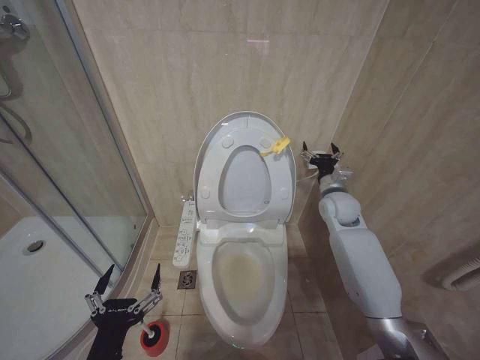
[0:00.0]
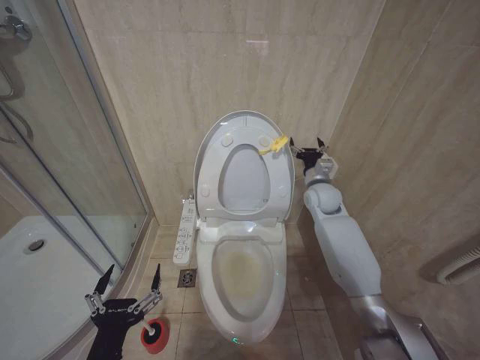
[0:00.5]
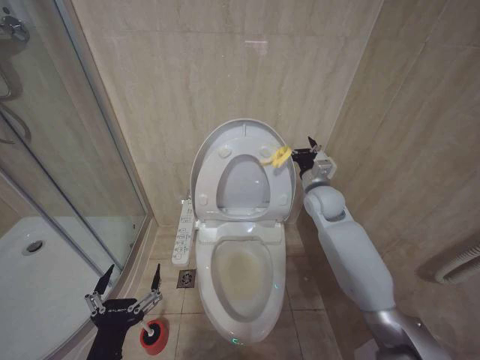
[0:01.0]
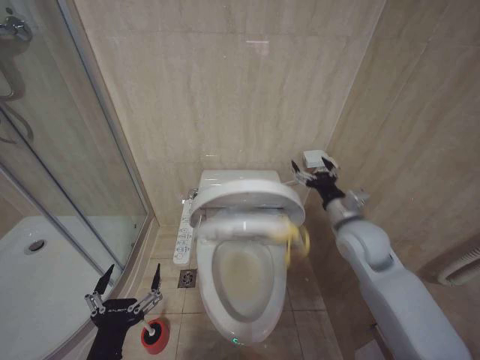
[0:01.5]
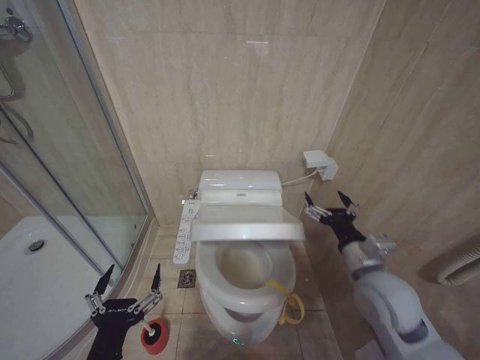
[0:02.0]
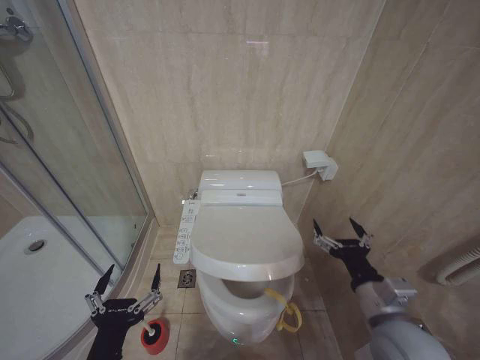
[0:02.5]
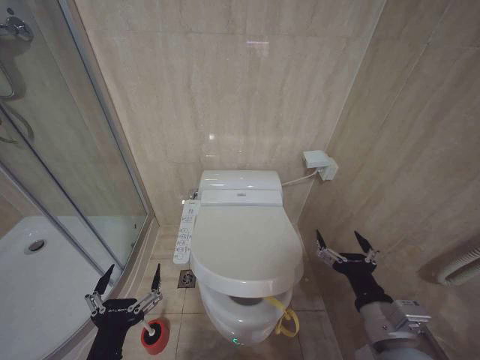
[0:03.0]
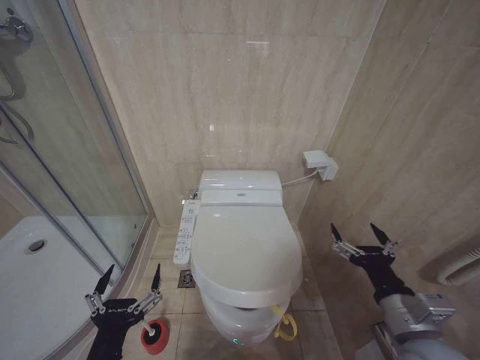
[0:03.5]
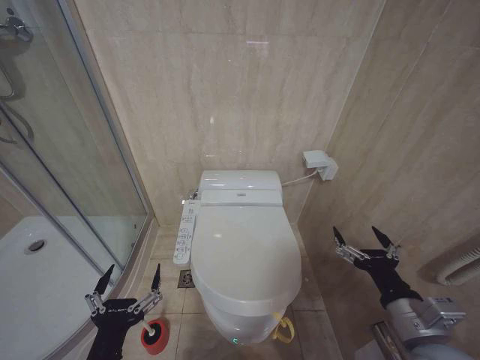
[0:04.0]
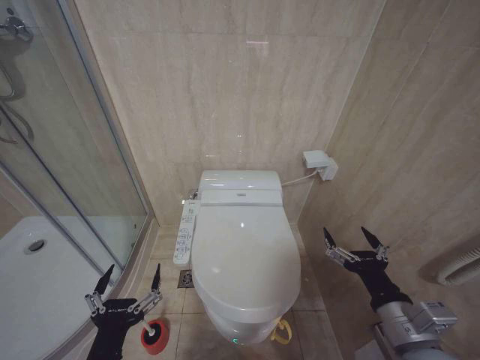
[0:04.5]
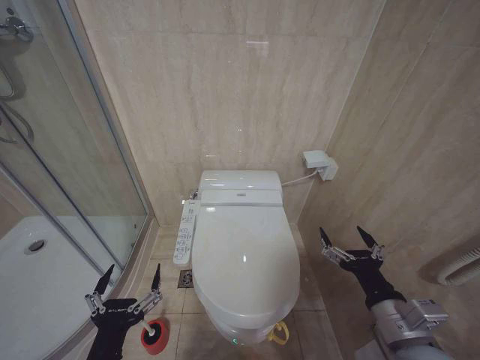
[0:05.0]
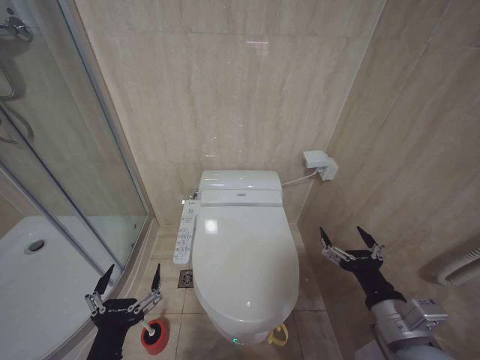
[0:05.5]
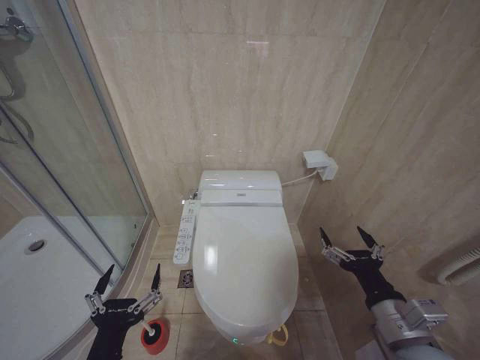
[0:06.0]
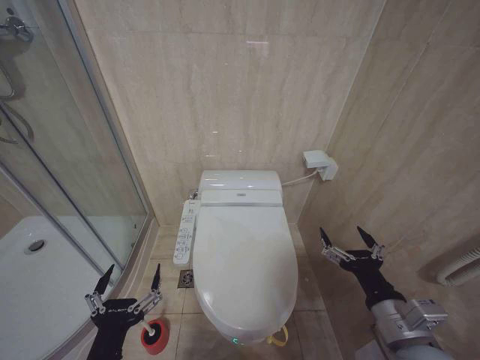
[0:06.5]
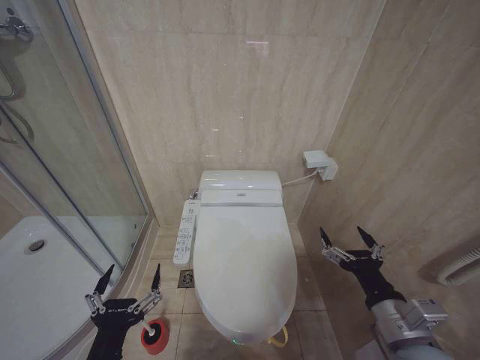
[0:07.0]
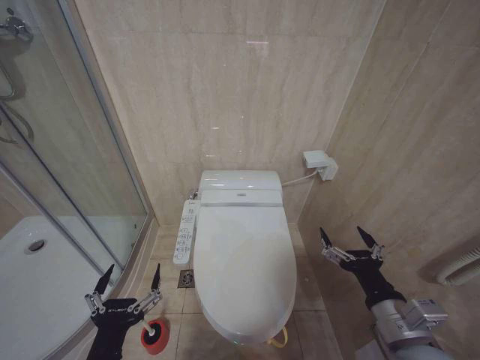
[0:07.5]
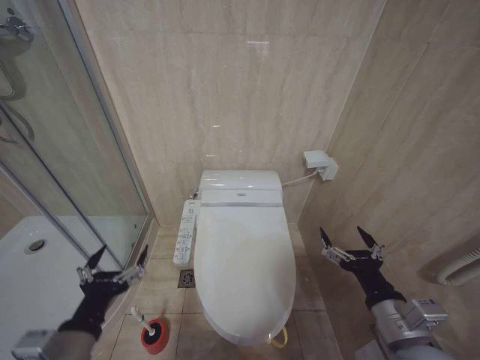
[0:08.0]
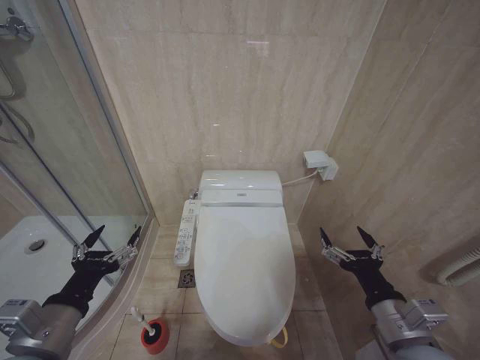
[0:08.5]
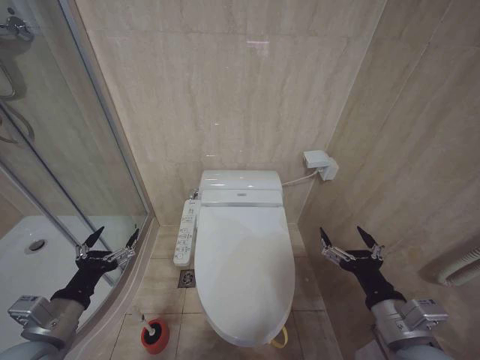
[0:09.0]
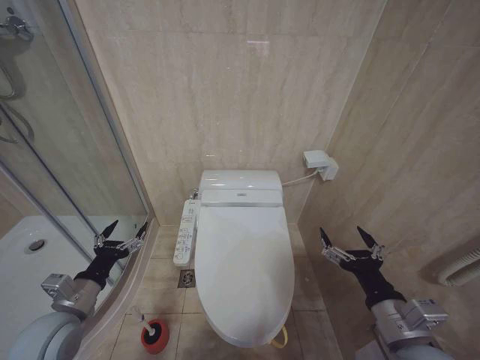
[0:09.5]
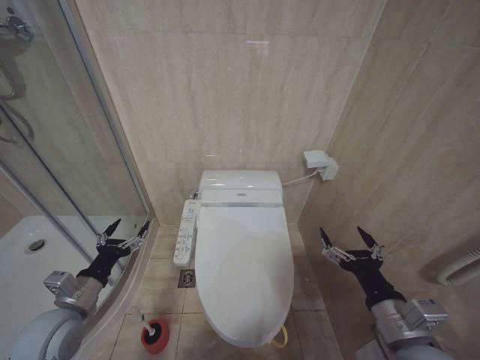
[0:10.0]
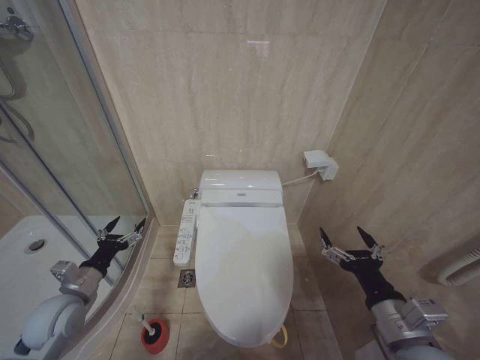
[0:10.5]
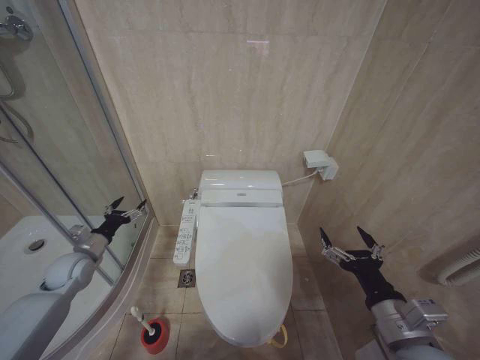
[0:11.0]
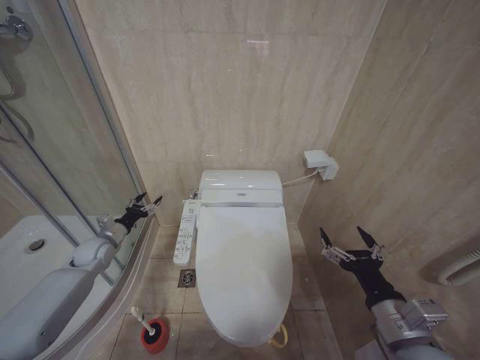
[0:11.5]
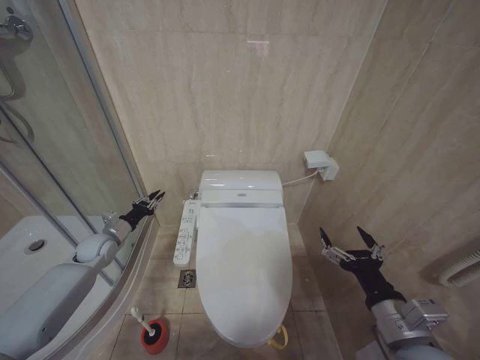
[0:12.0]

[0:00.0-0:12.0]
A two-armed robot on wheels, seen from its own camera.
Task of the whole recording: Open the toilet lid, clean the toilet bowl with a toilet brush, close the toilet lid, and flush.
0:00.0 to 0:02.0: The right gripper is displaced backward by about 20 cm.
0:02.0 to 0:04.0: The right gripper goes roughly 10 cm backward.
0:04.0 to 0:06.0: The grippers make only small movements.
0:06.0 to 0:08.0: The left gripper shifts by about 5 cm.
0:08.0 to 0:10.0: The left gripper shifts roughly 15 cm forward and to the left.
0:10.0 to 0:12.0: The left gripper goes some 20 cm forward, and closes up.

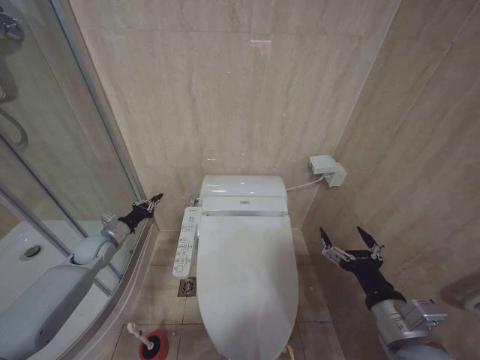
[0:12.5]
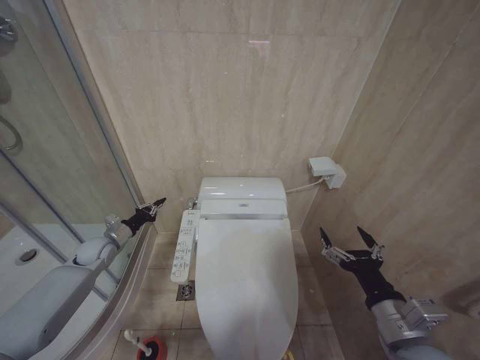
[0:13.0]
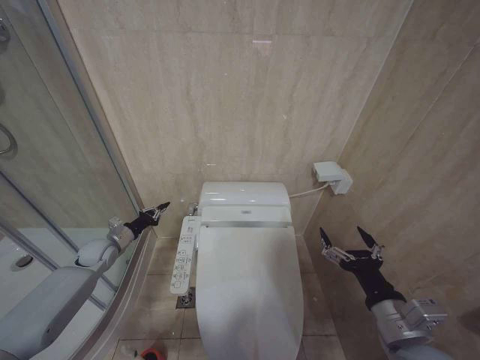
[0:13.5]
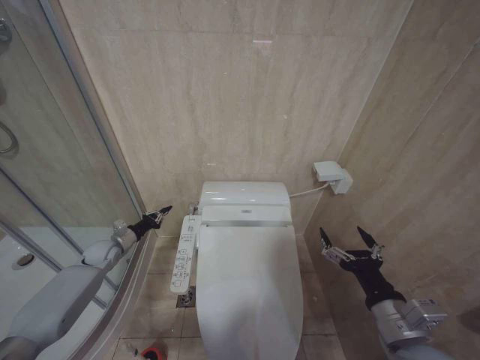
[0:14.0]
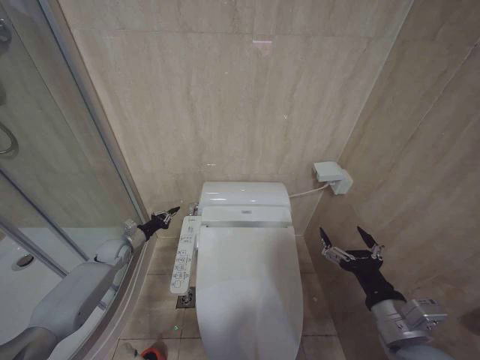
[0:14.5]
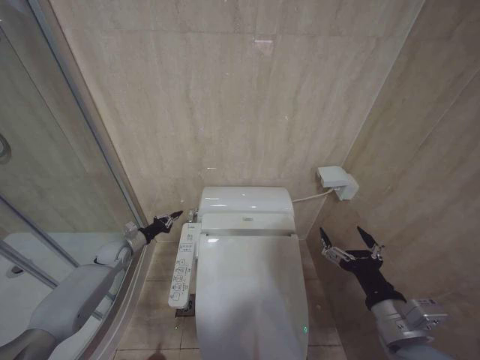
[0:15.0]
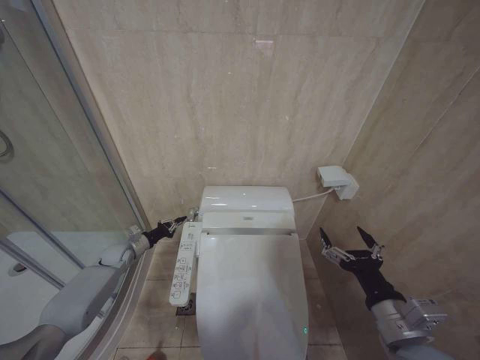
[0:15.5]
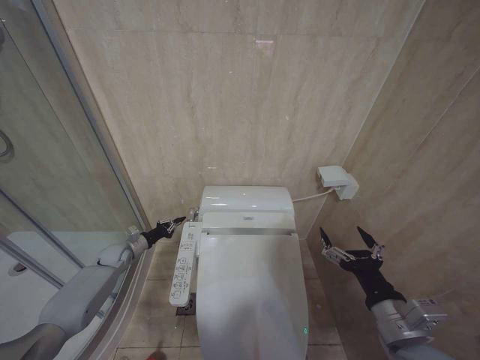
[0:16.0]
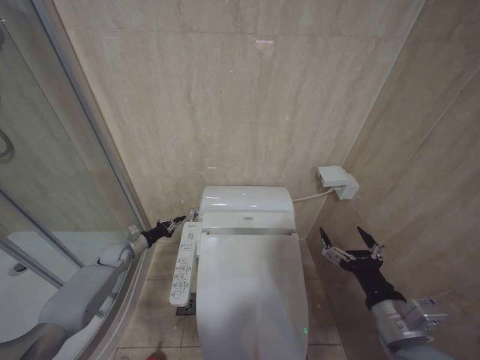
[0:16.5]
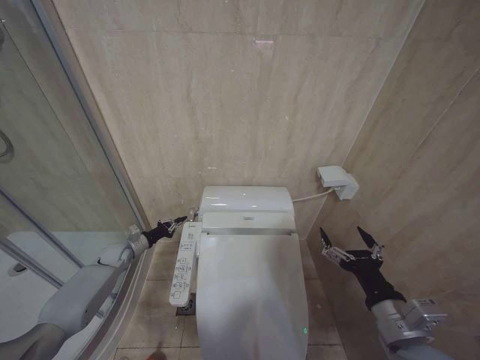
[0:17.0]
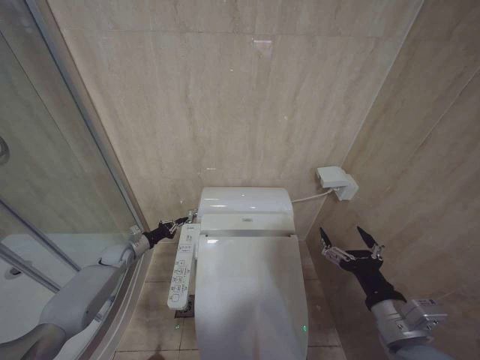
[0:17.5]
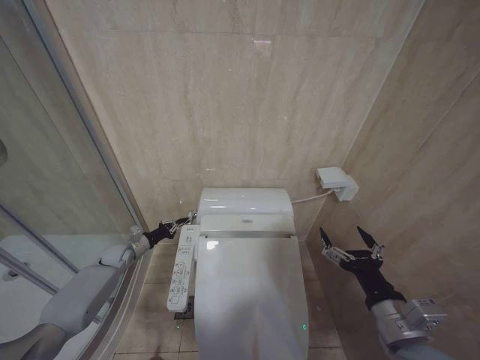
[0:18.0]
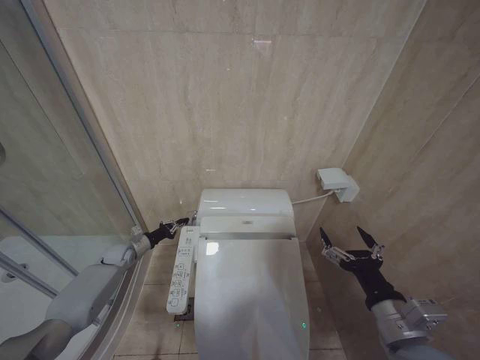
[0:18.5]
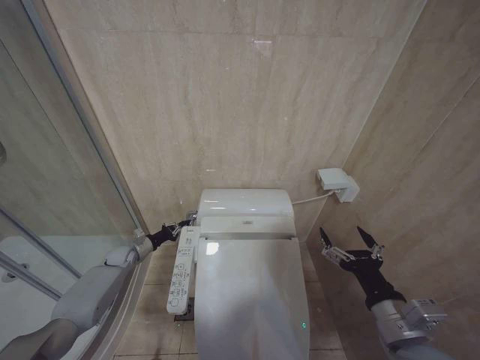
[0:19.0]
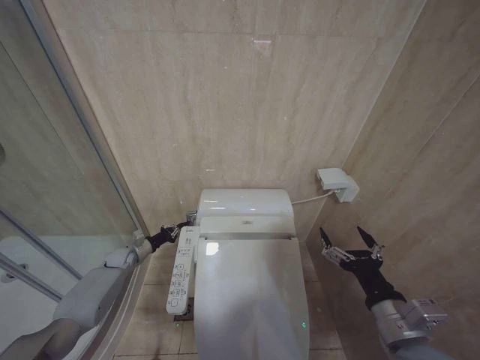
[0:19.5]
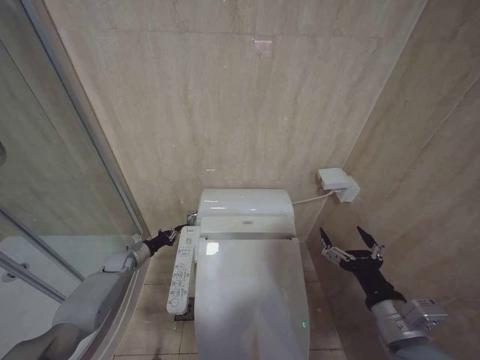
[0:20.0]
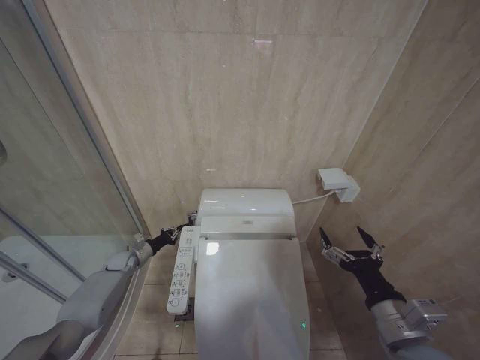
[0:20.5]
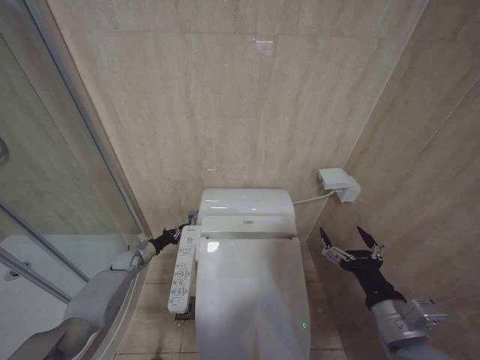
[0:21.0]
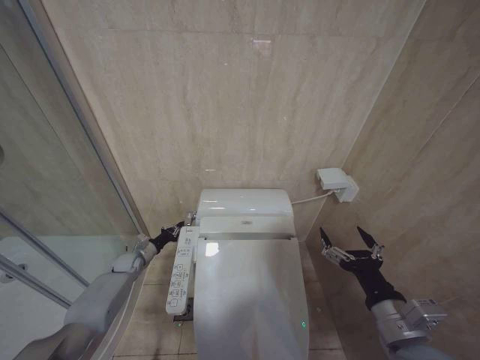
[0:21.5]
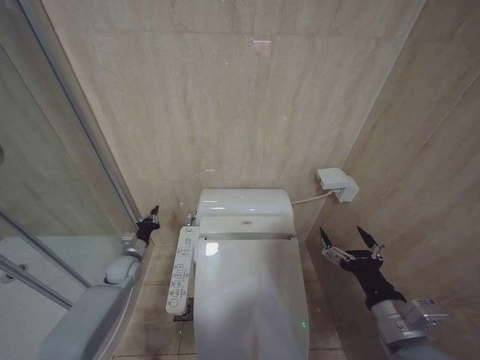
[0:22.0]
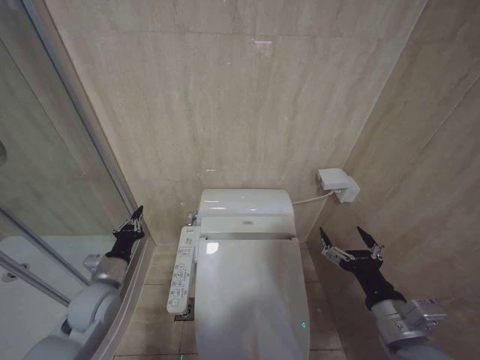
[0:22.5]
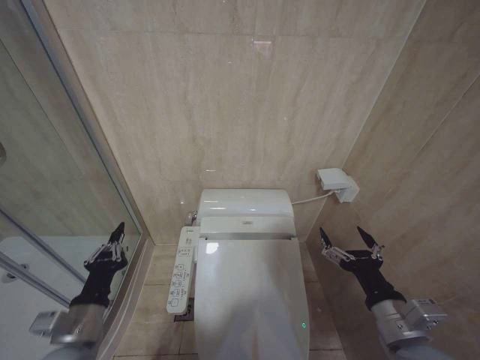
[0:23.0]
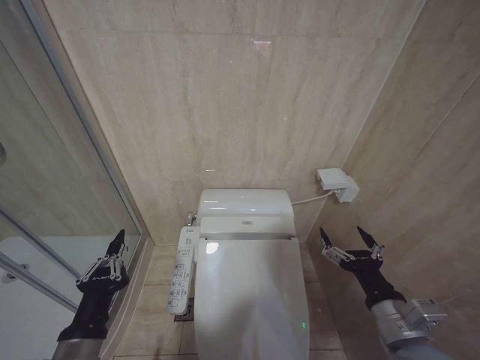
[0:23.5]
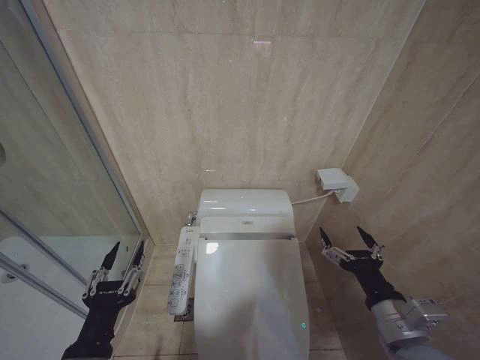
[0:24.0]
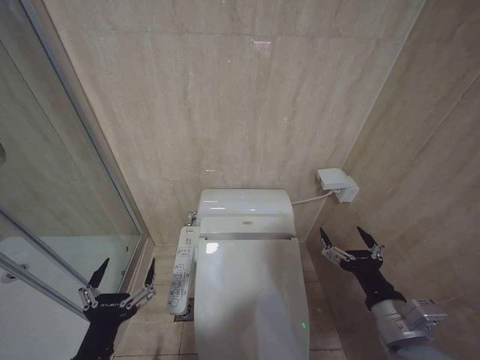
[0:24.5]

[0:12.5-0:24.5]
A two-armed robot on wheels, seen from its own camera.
Task of the whole recording: Open the toilet lid, clean the toilet bowl with a toilet brush, close the toilet lid, and flush.
0:12.5 to 0:14.5: The left gripper heads downward, covering roughly 5 cm.
0:14.5 to 0:16.5: The grippers make only small movements.
0:16.5 to 0:18.5: The two grippers keep their place.
0:18.5 to 0:20.5: The grippers move only a little.
0:20.5 to 0:22.5: The left gripper travels backward and upward by some 20 cm.
0:22.5 to 0:24.5: The left gripper moves backward, approximately 25 cm, and opens.

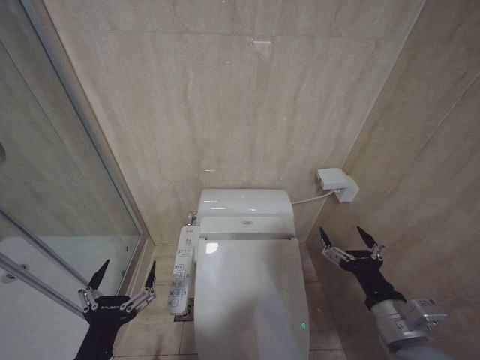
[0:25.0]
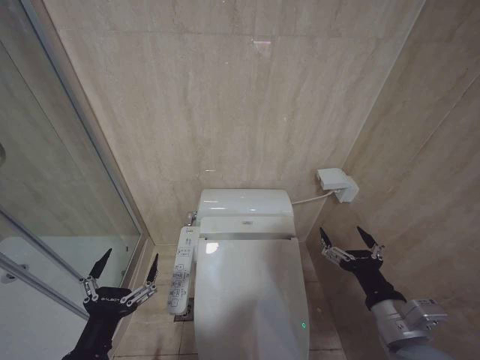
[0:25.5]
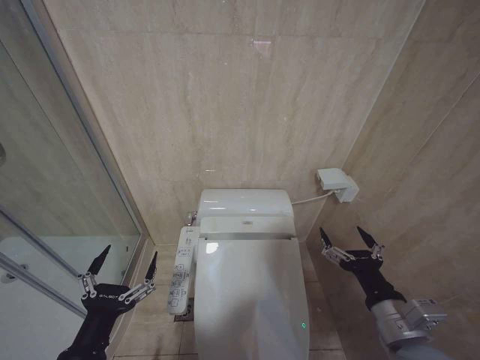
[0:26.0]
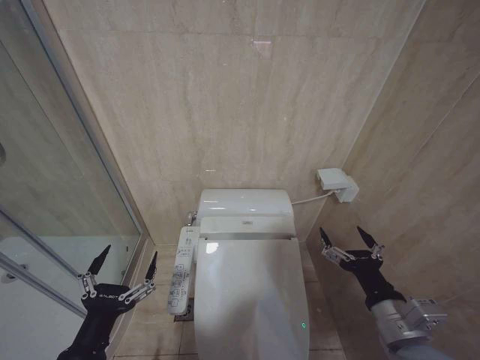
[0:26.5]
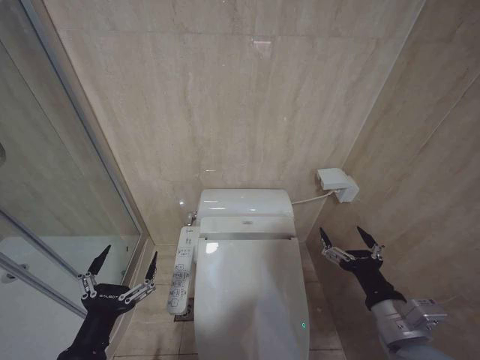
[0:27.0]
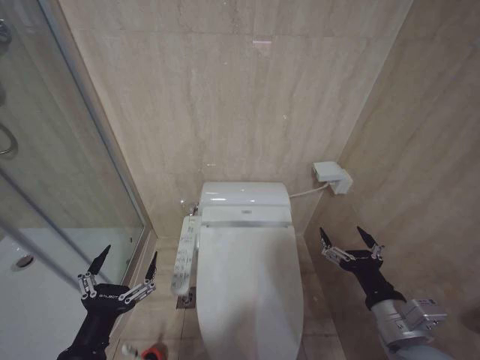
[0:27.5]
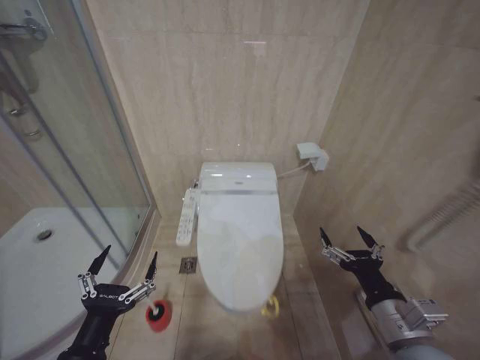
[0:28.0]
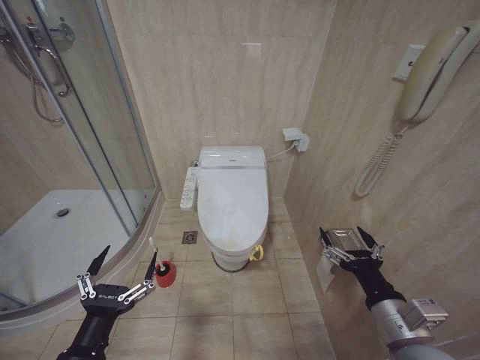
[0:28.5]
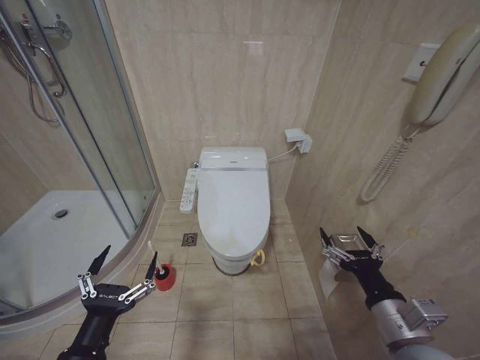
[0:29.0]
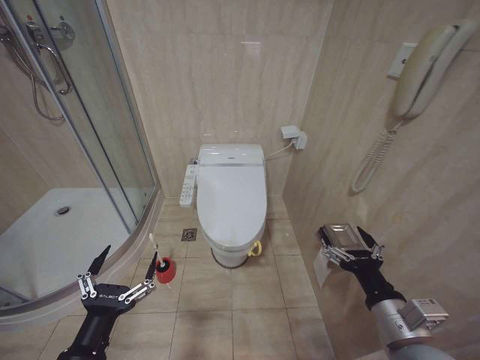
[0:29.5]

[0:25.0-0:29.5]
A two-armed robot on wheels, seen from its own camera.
Task of the whole recording: Open the toilet lid, clean the toilet bowl with a toilet brush, close the toilet lid, and flush.
0:25.0 to 0:27.0: The grippers make only small movements.
